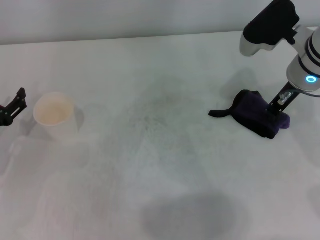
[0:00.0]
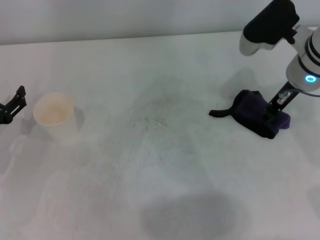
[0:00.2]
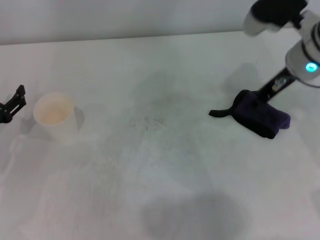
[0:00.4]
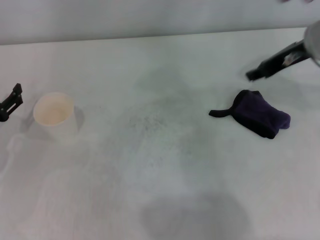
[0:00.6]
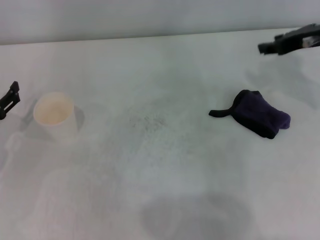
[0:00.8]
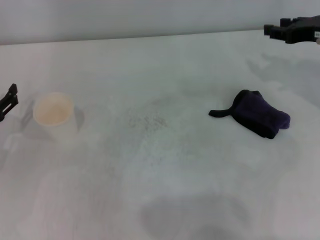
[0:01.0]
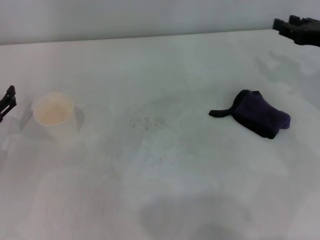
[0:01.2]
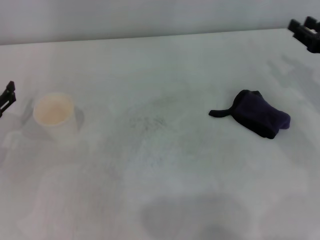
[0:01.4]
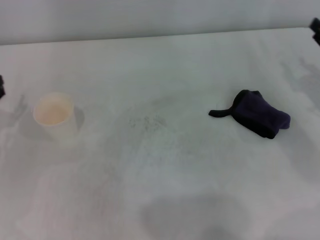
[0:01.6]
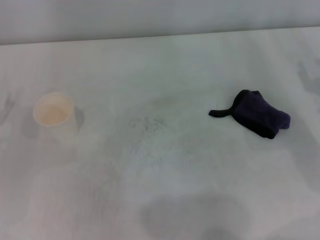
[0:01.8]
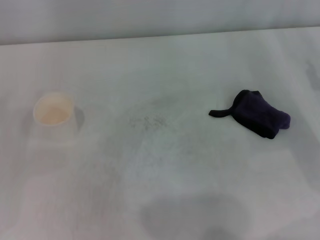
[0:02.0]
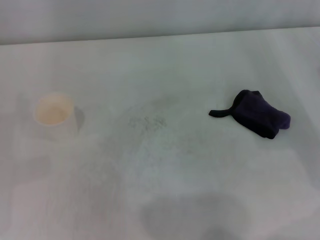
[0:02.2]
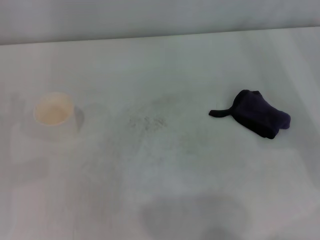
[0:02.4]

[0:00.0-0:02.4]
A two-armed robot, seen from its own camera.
0.0 to 1.2 s: The right gripper moves to the right, roughly 10 cm, and opens up.
1.2 to 2.4 s: The right gripper goes approximately 5 cm backward.

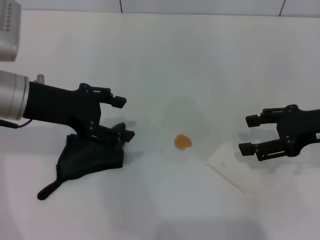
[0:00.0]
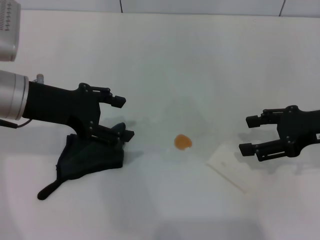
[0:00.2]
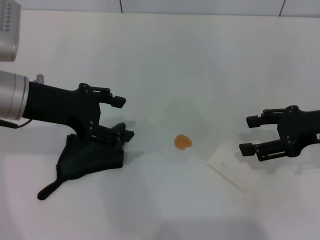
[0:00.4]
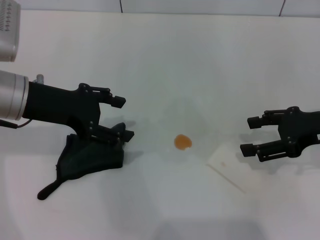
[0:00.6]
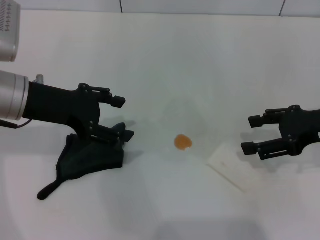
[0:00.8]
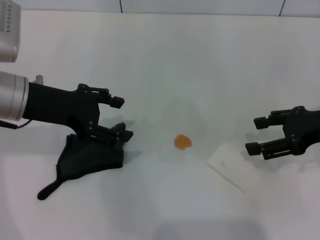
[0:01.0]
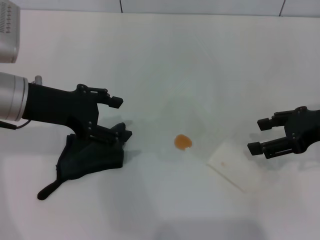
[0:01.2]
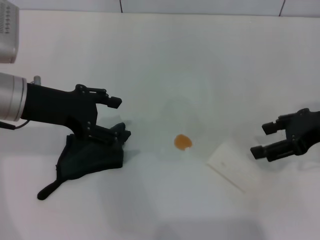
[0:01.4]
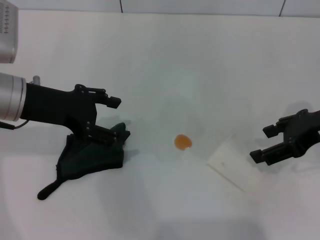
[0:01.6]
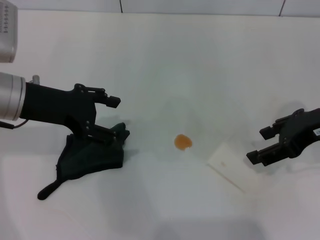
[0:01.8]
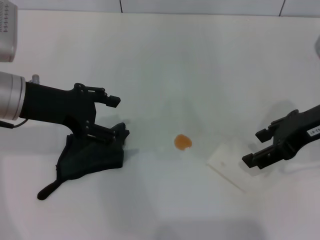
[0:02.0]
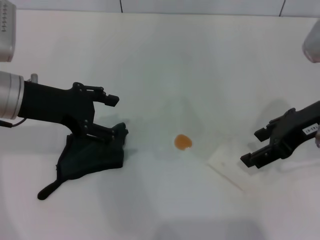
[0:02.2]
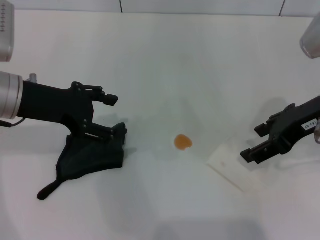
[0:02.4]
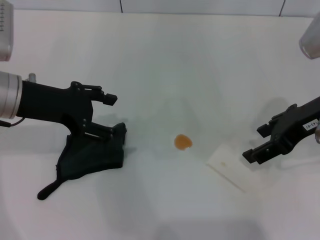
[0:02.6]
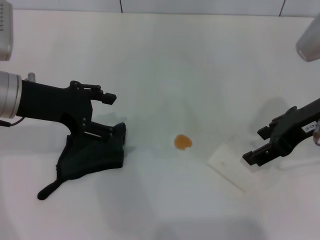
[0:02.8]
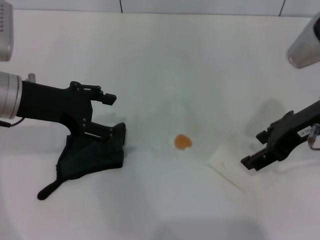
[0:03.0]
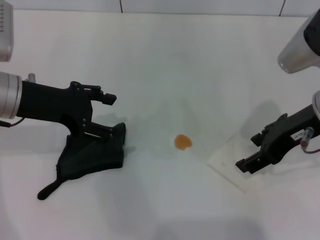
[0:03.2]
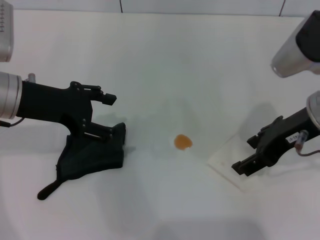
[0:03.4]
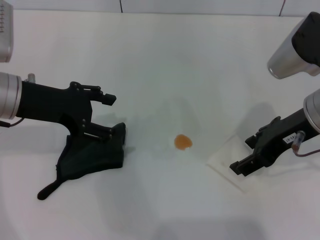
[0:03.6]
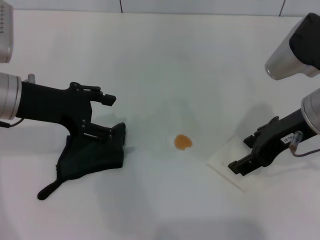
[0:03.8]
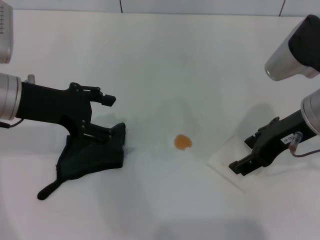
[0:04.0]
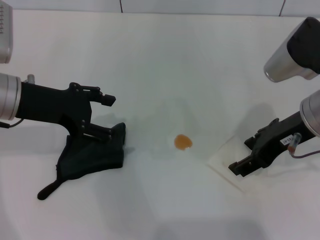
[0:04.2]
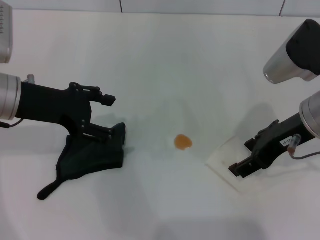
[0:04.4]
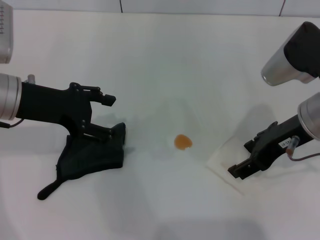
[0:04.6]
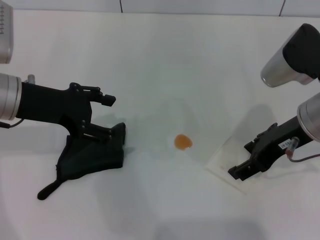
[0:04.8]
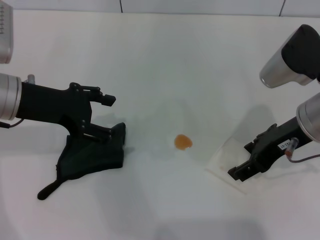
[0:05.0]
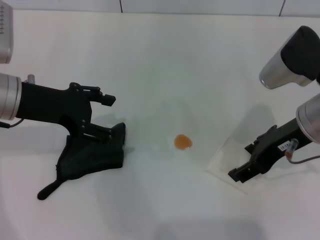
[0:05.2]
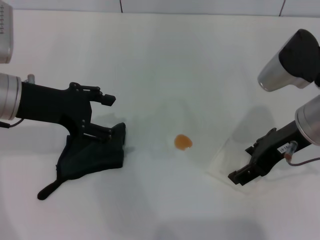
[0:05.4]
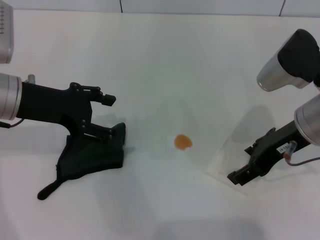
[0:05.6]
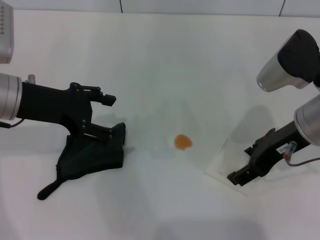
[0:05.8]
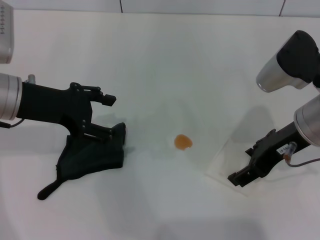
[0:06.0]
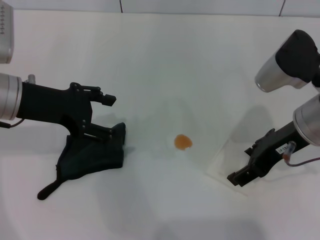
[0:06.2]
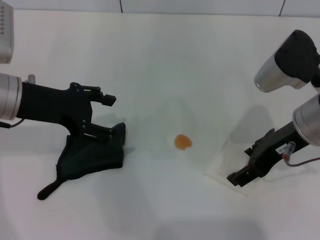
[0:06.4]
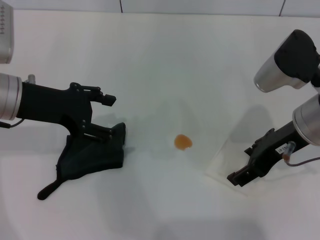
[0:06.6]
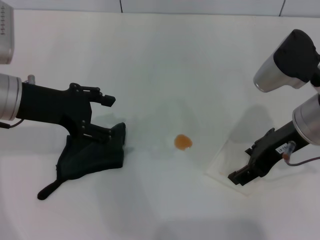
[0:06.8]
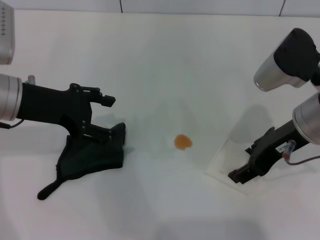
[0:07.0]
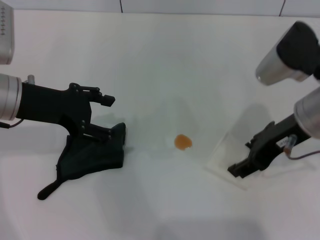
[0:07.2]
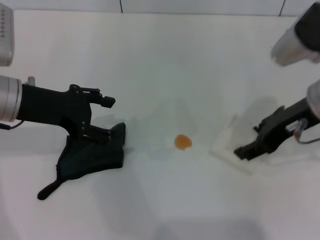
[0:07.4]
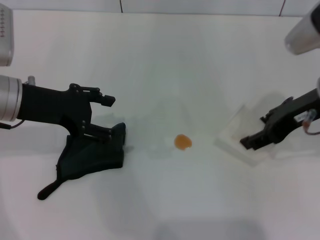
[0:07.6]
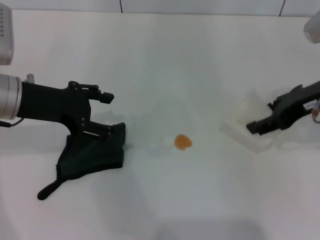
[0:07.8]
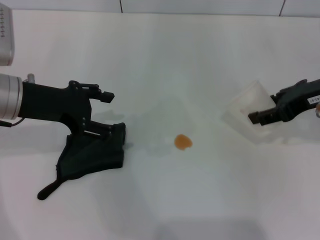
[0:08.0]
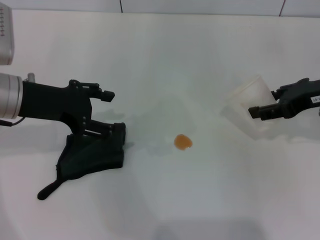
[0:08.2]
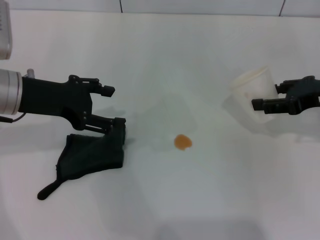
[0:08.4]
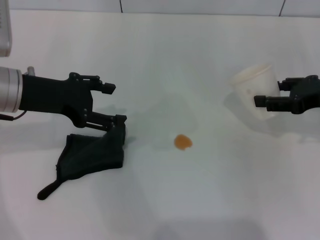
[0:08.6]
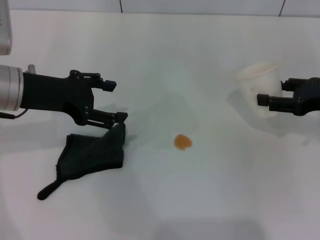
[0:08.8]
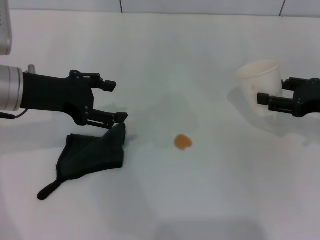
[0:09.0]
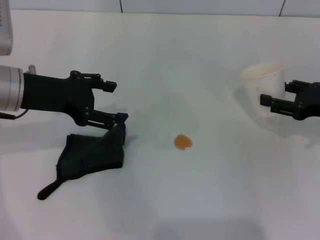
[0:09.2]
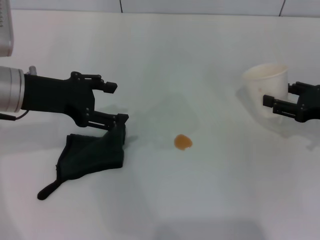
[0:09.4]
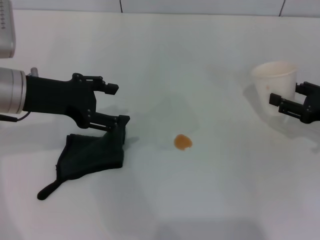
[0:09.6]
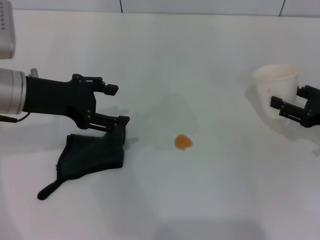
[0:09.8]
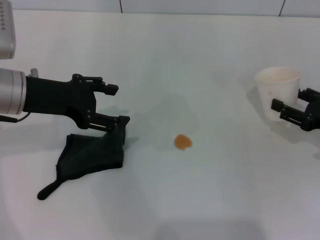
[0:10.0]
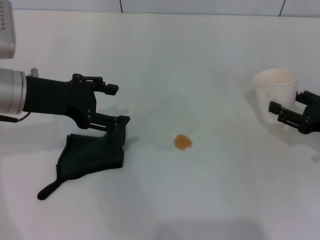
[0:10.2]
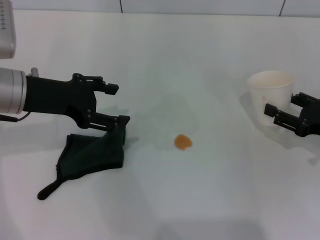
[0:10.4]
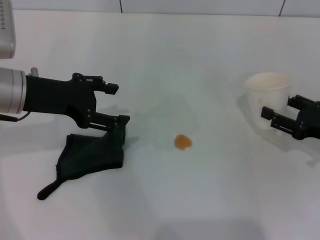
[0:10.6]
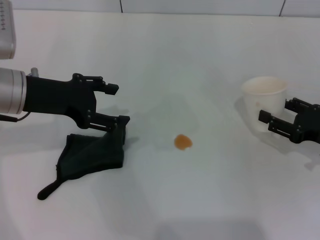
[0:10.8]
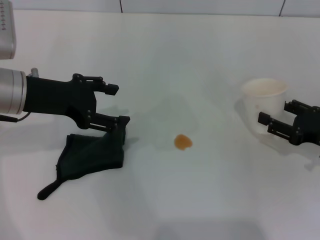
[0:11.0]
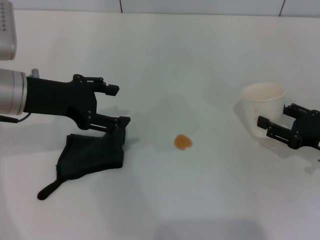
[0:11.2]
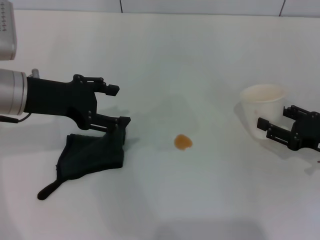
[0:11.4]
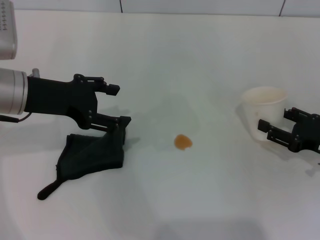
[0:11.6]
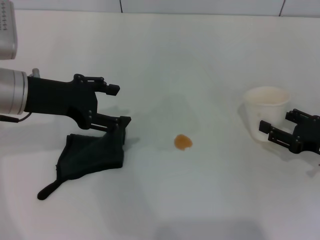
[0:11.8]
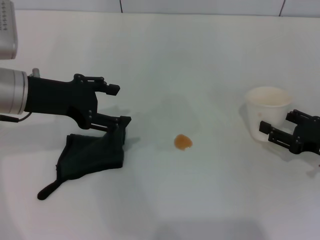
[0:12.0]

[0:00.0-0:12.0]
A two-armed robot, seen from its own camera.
Step, 0.0 to 6.8 s: Grasp the paper cup with the right gripper.
1.6 to 3.0 s: The right gripper moves about 5 cm.
3.0 to 4.4 s: The grippers make only small movements.
4.4 to 6.0 s: Both grippers stay about where they are.
6.0 to 7.6 s: The right gripper closes.
7.6 to 9.0 s: The right gripper goes roughly 15 cm to the right and downward.
9.0 to 10.4 s: The right gripper moves downward, roughly 5 cm.
10.4 to 12.0 s: The grippers move only a little.

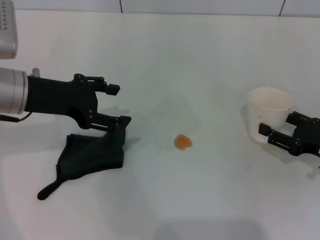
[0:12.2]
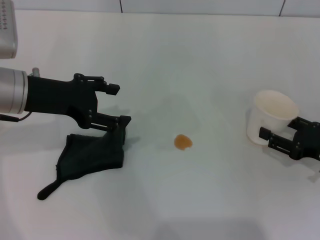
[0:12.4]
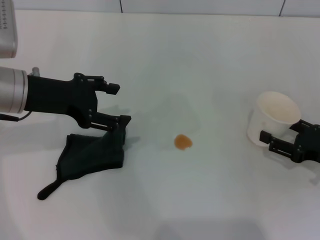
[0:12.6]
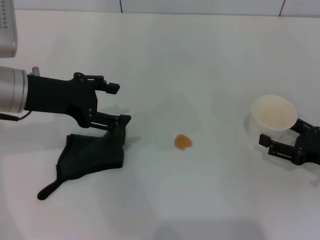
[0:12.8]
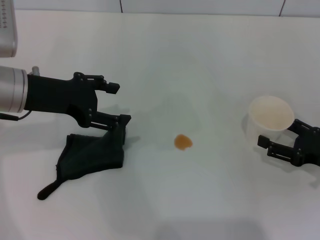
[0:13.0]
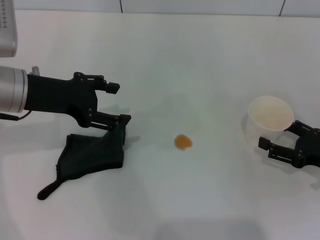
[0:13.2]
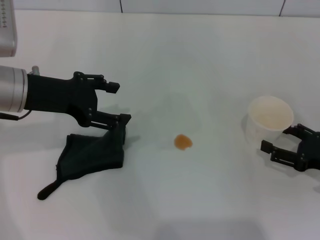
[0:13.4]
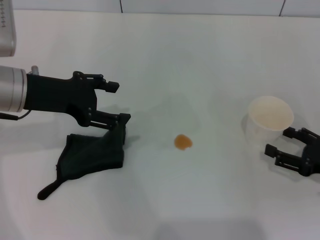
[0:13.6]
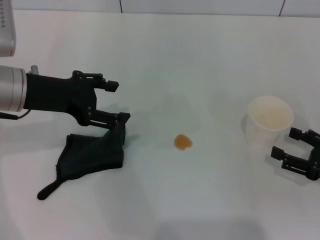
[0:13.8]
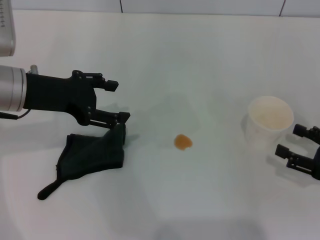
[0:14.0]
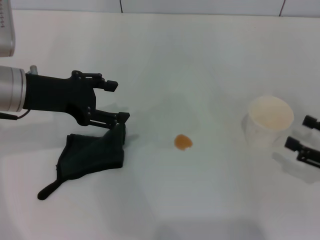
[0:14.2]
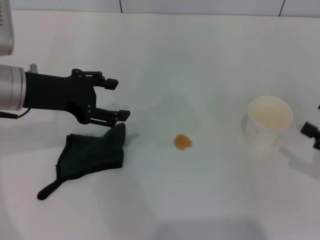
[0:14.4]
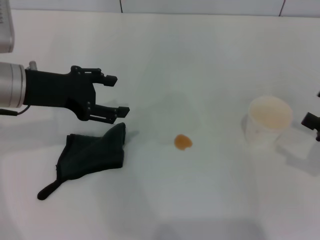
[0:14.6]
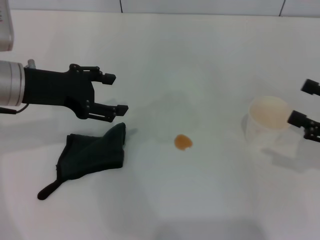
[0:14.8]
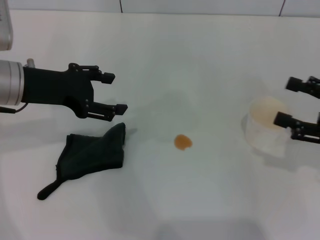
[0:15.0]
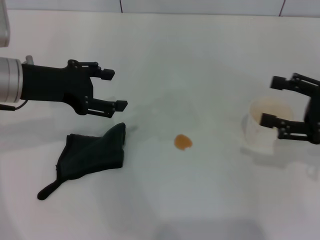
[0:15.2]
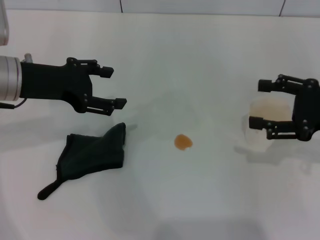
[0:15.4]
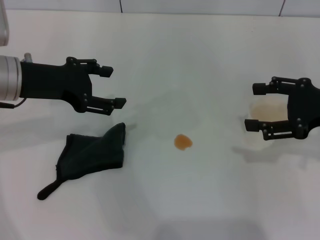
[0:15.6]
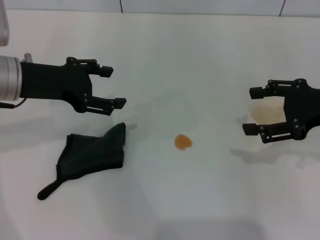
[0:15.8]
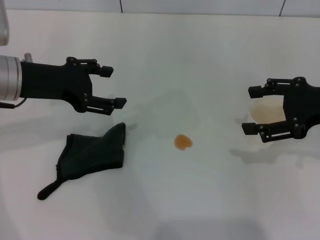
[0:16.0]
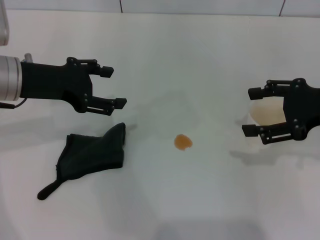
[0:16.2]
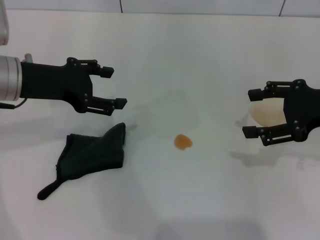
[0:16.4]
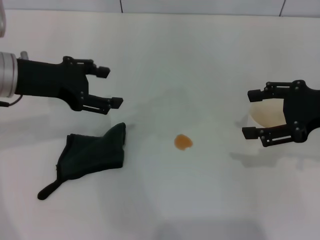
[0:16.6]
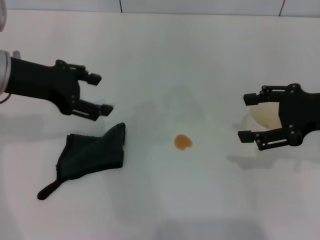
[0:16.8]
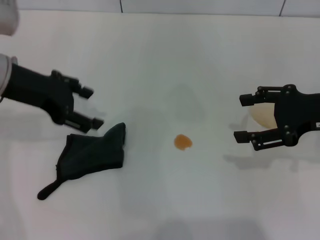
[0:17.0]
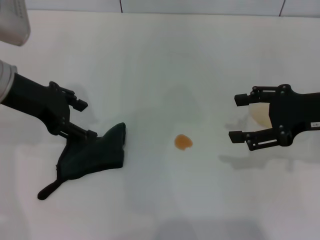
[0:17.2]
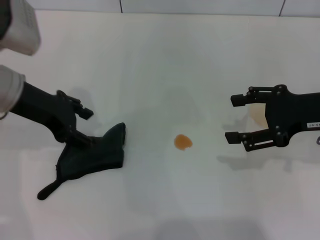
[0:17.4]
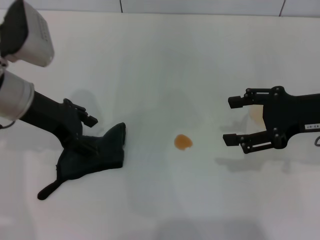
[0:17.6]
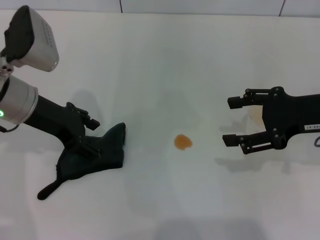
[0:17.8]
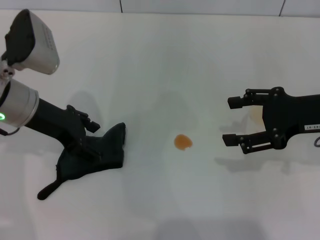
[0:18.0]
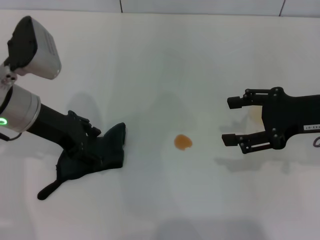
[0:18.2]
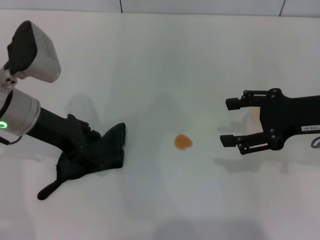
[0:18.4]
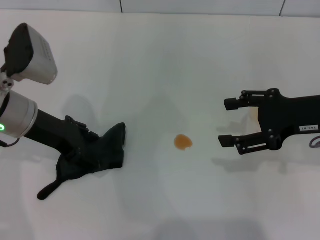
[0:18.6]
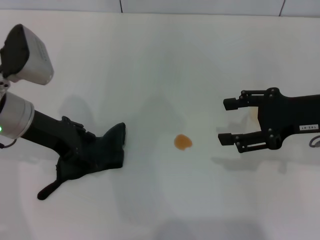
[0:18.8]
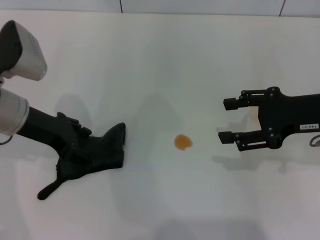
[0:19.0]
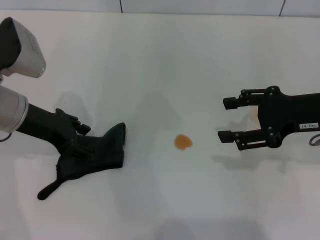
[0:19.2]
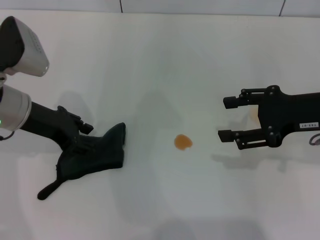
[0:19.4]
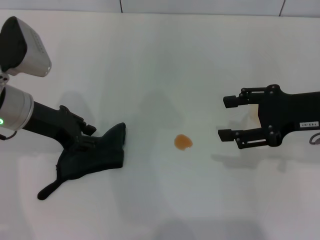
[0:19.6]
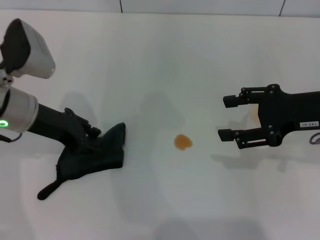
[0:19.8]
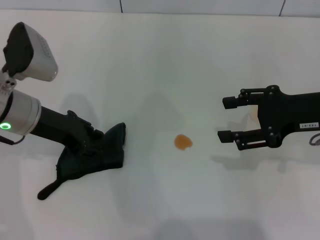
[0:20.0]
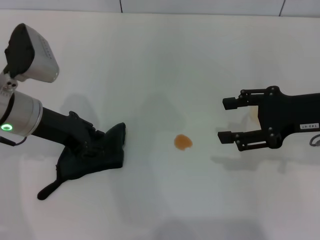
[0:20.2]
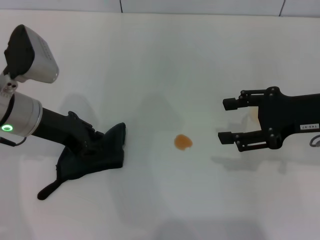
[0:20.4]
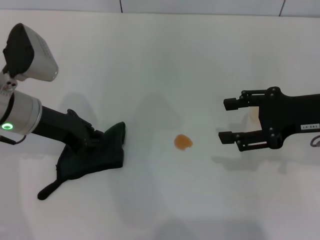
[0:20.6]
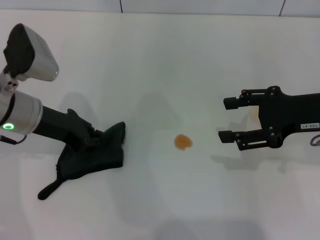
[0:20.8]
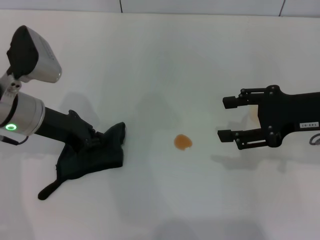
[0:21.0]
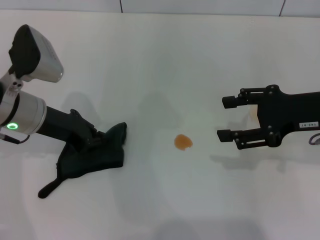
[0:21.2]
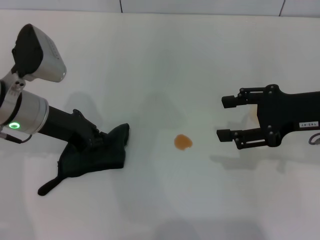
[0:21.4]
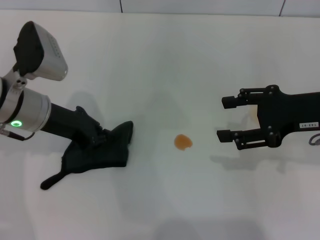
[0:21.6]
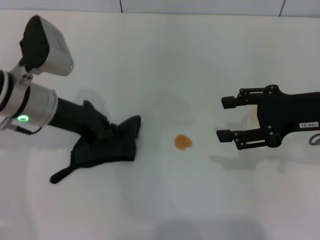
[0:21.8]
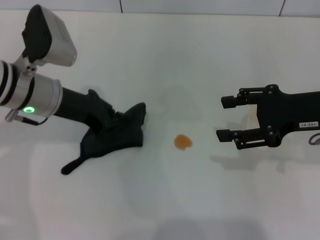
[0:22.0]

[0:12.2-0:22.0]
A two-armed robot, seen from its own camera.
Step, 13.8 to 21.6 s: Grasp the rag with the left gripper.
12.2 to 13.6 s: The right gripper opens its fingers.
13.6 to 15.0 s: The right gripper heads upward, covering about 10 cm.
15.0 to 16.4 s: The right gripper is displaced upward by approximately 5 cm.
17.8 to 19.2 s: The right gripper closes its fingers.
19.2 to 20.6 s: The left gripper closes.
20.6 to 22.0 s: There are only small adjustments of the grippers.
